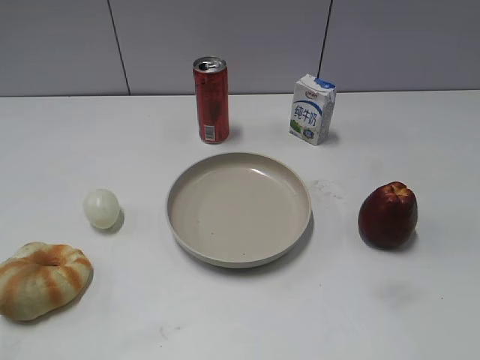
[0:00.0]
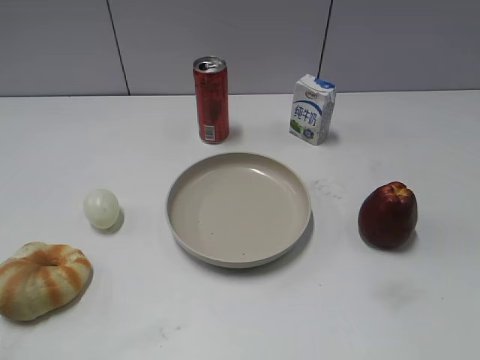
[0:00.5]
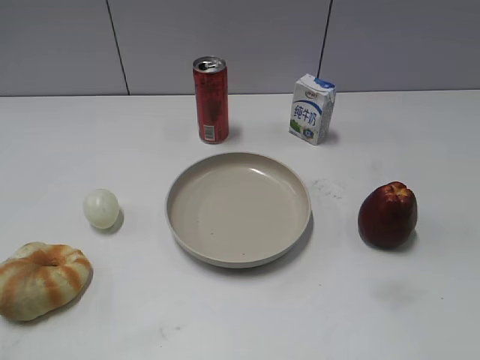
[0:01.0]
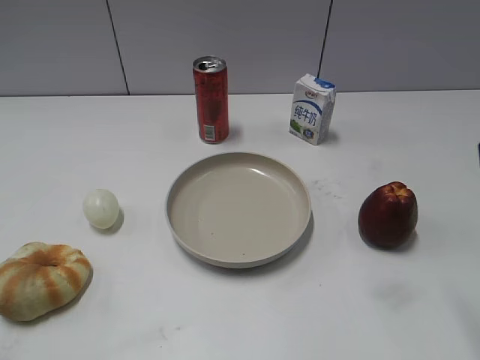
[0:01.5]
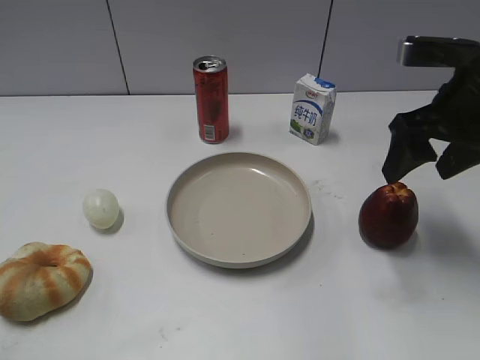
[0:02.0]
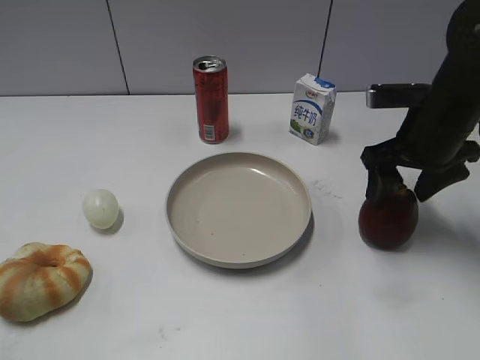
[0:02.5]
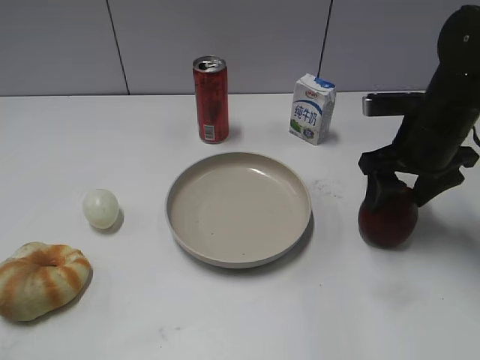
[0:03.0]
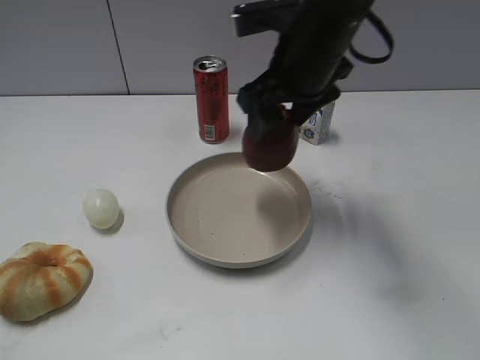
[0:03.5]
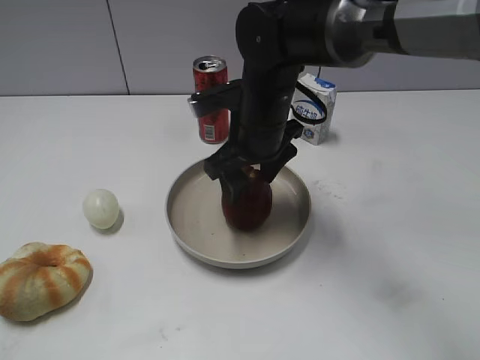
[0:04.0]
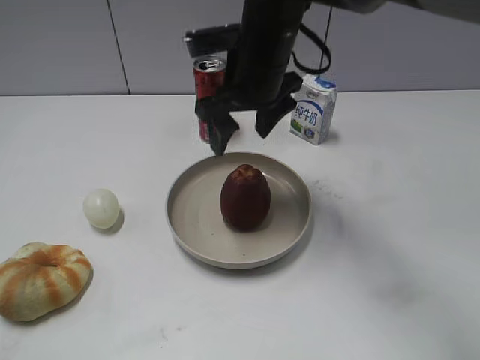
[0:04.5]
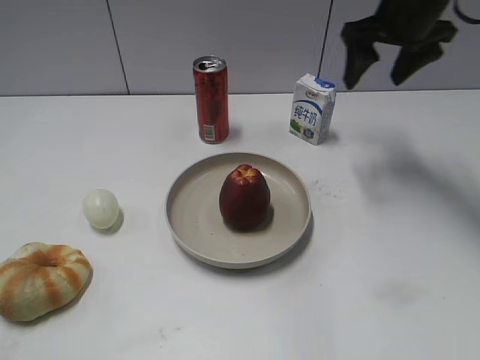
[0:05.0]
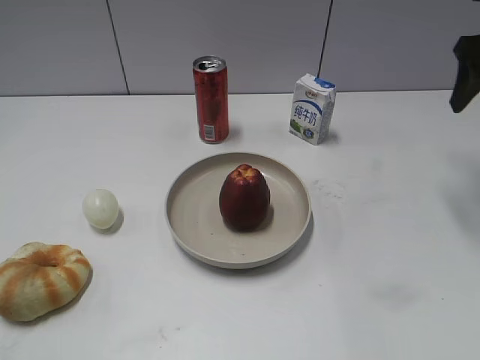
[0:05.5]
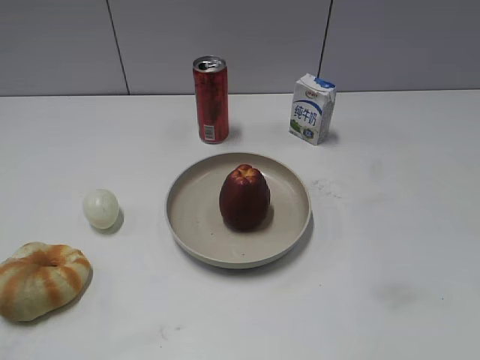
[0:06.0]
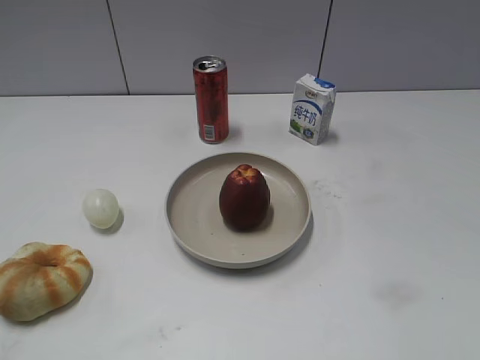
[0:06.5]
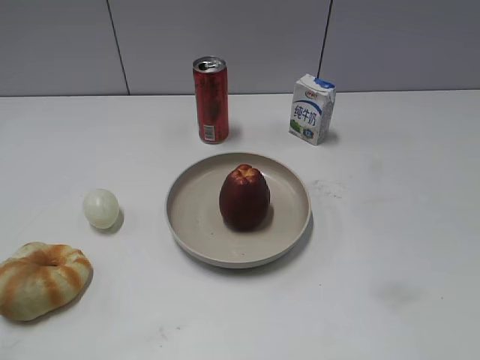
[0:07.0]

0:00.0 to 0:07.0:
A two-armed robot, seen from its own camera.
Step, 0:02.0 to 0:02.5: Grasp the apple with right gripper.
Step, 0:03.0 to 0:04.0: Place the apple on the plate with right gripper.
0:02.0 to 0:03.5: The right gripper moves to the left, some 15 cm, and closes up.
0:03.5 to 0:05.0: The right gripper is displaced to the right and forward by about 15 cm, and opens.
0:05.0 to 0:07.0: The right gripper travels backward by about 40 cm, and closes its fingers.

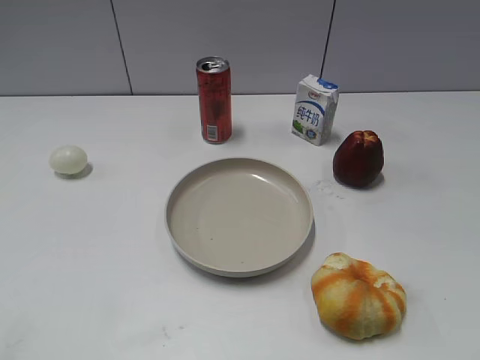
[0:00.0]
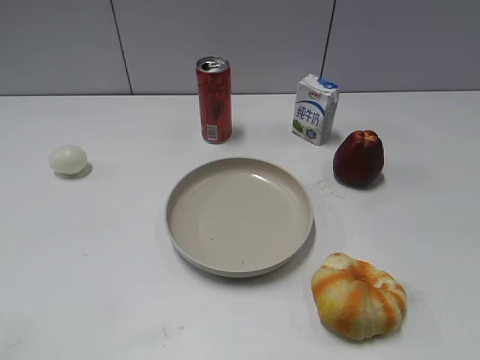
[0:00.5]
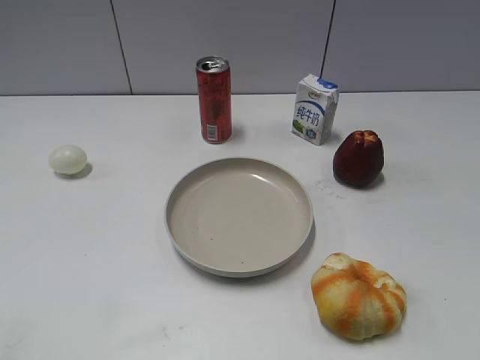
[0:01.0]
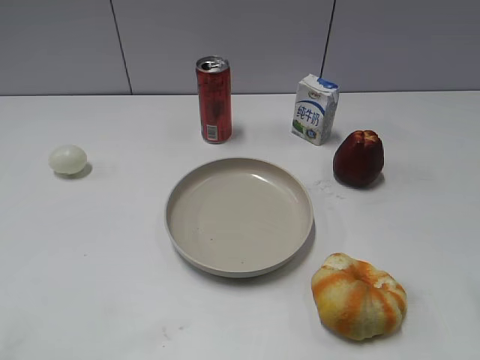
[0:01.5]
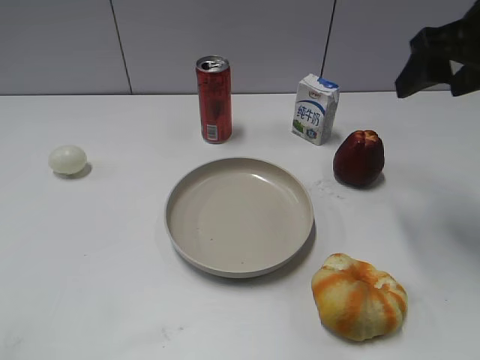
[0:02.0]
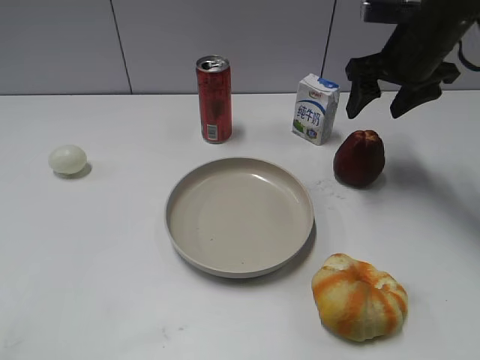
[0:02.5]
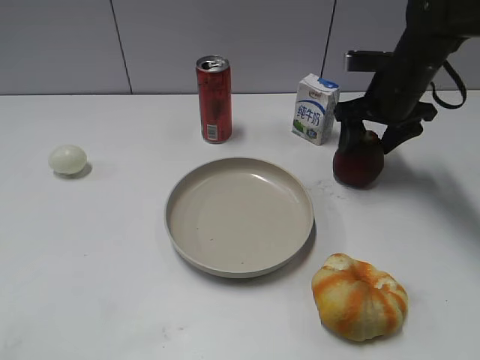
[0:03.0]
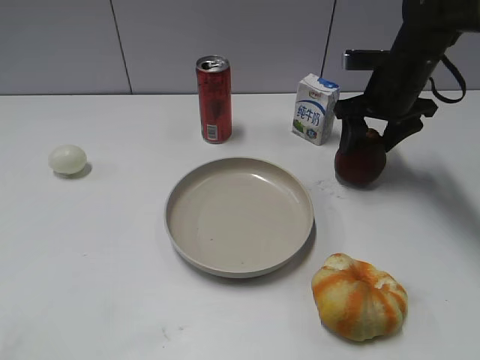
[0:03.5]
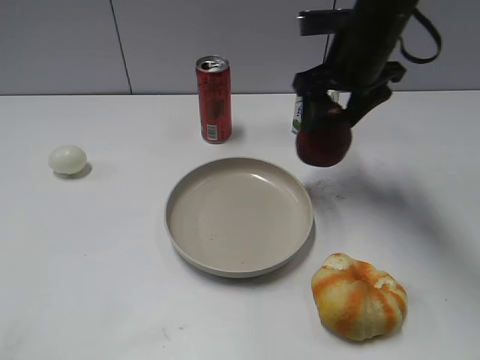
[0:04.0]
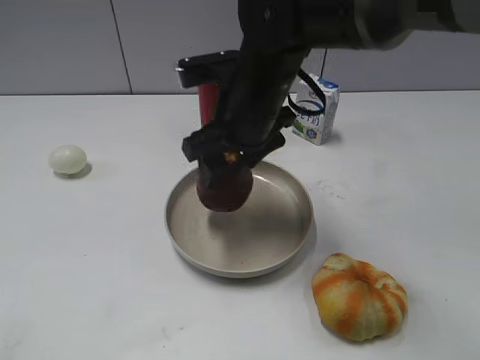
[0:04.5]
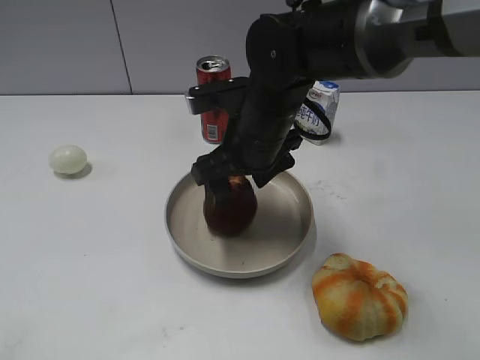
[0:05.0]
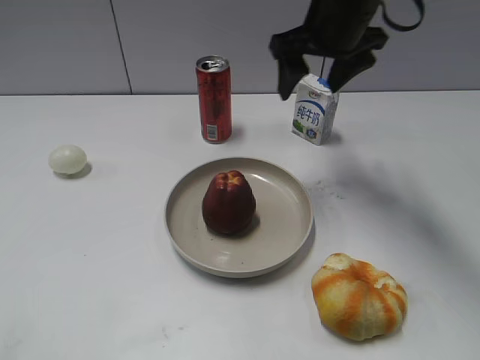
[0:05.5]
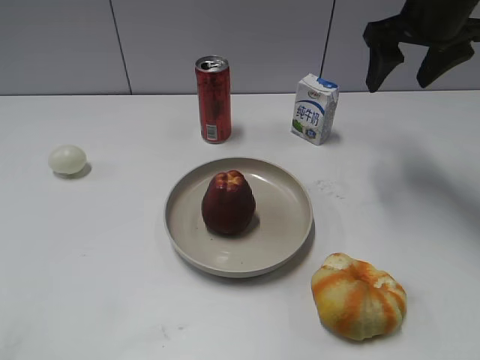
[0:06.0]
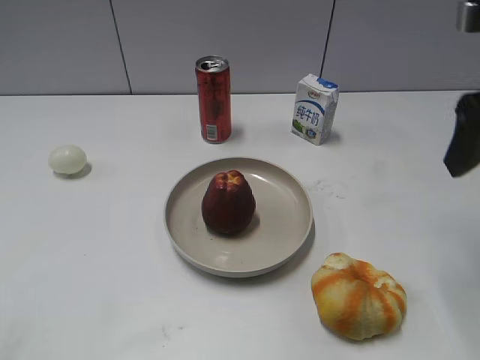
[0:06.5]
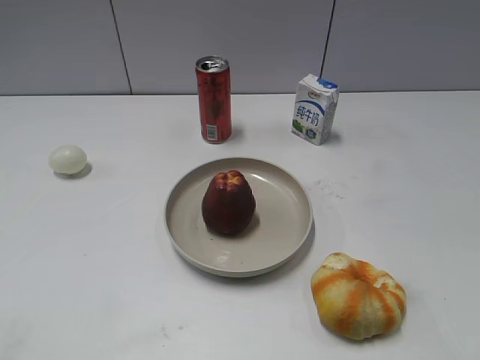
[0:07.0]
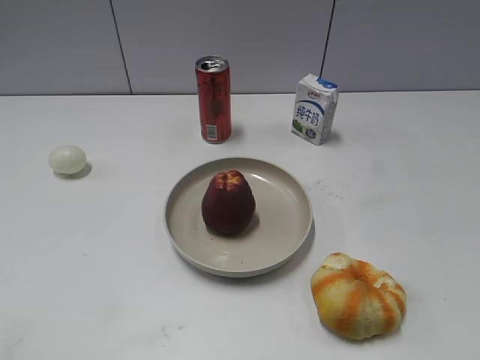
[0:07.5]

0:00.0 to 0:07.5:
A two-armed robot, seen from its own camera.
Step, 0:02.0 to 0:03.0: Grasp the apple with right gripper.
Step, 0:03.5 to 0:05.0: Place the apple on the plate with right gripper.
0:02.0 to 0:04.0: The right gripper heads to the left, forward and downward, covering some 15 cm.
0:04.0 to 0:05.5: The right gripper moves approximately 10 cm to the left and comes back, and opens up.
0:05.5 to 0:07.5: The right gripper heads backward and to the right, covering some 40 cm, and closes up.
